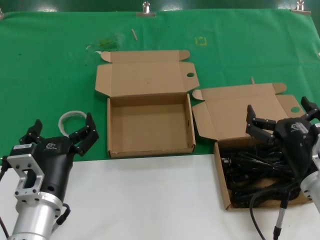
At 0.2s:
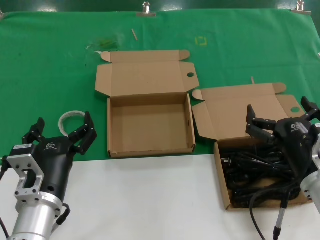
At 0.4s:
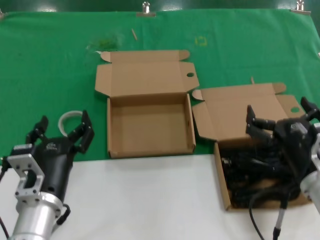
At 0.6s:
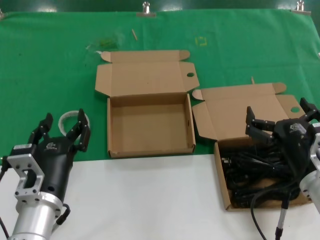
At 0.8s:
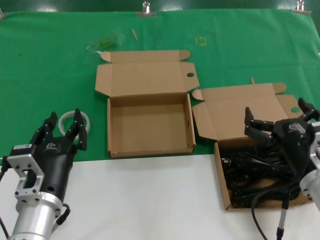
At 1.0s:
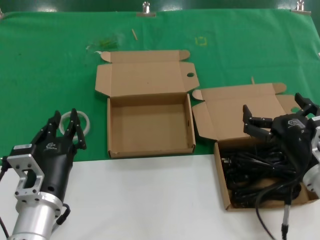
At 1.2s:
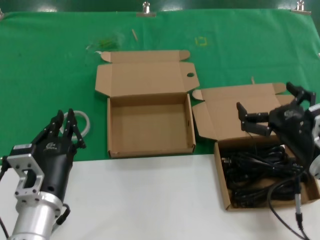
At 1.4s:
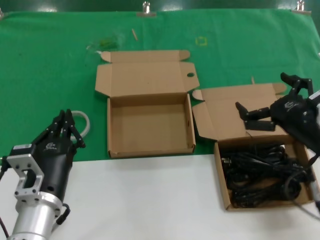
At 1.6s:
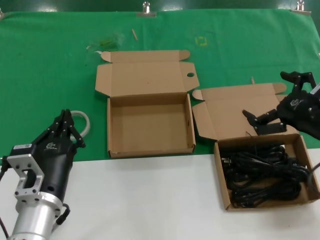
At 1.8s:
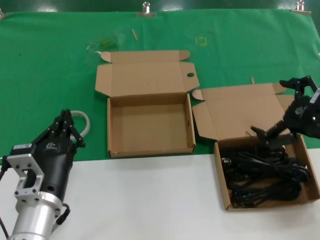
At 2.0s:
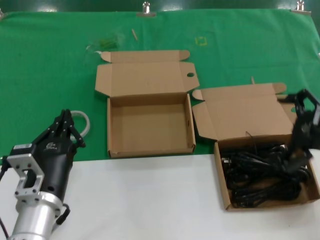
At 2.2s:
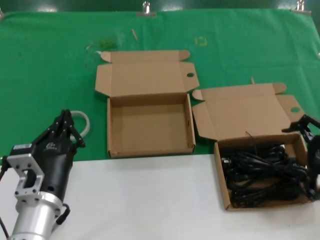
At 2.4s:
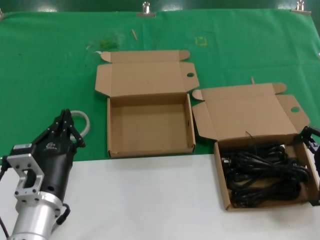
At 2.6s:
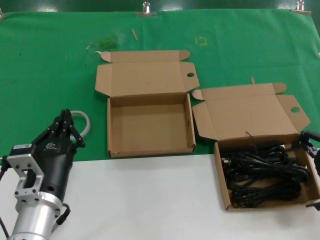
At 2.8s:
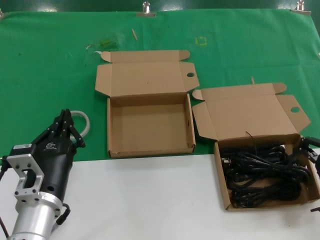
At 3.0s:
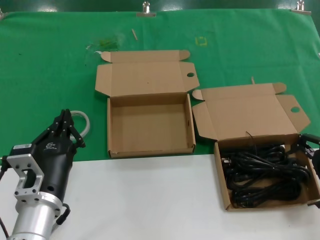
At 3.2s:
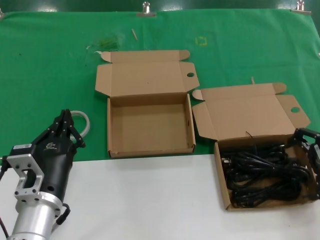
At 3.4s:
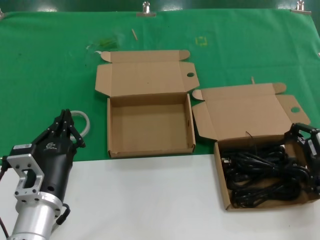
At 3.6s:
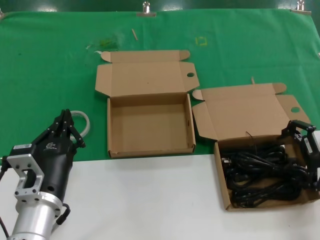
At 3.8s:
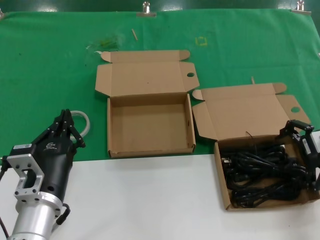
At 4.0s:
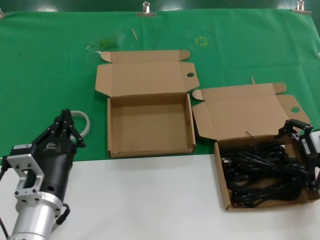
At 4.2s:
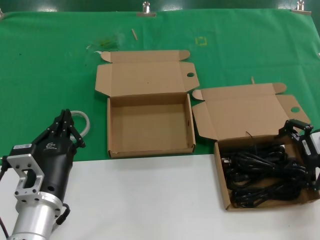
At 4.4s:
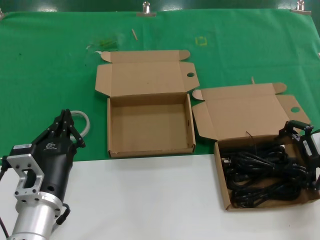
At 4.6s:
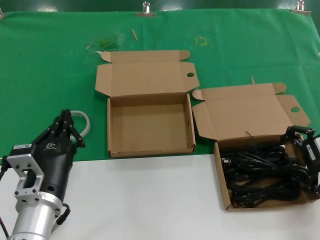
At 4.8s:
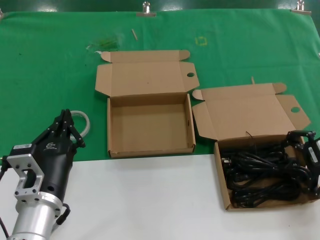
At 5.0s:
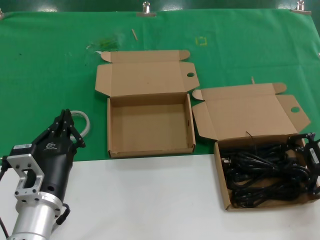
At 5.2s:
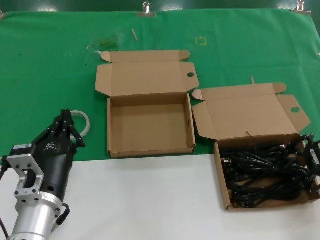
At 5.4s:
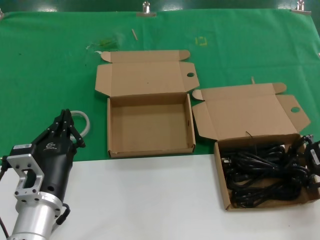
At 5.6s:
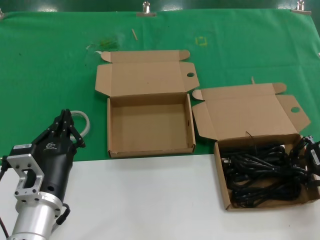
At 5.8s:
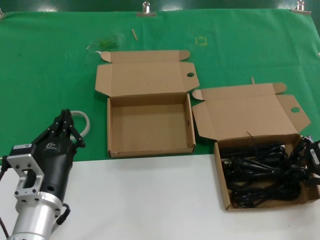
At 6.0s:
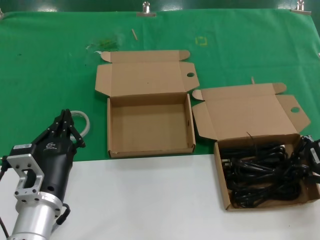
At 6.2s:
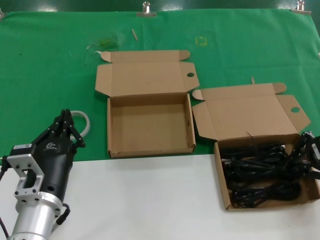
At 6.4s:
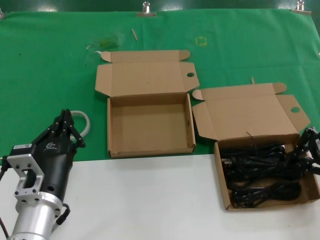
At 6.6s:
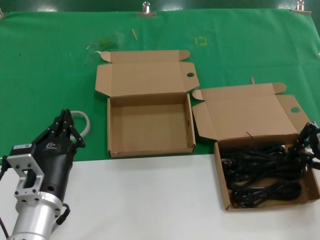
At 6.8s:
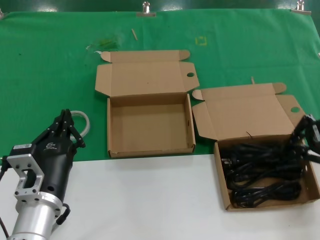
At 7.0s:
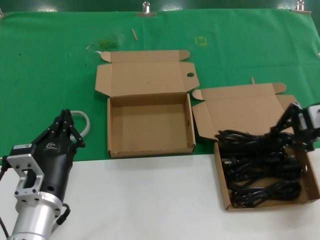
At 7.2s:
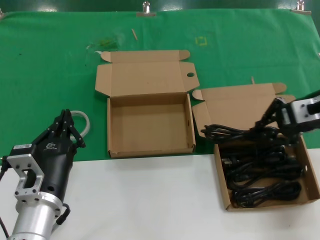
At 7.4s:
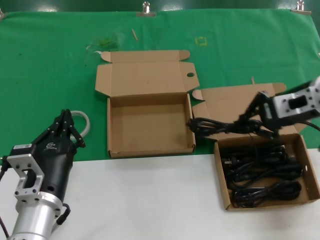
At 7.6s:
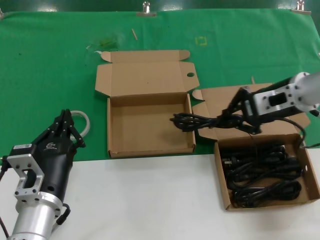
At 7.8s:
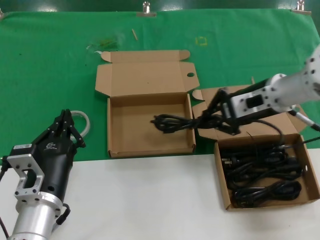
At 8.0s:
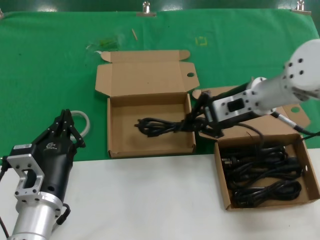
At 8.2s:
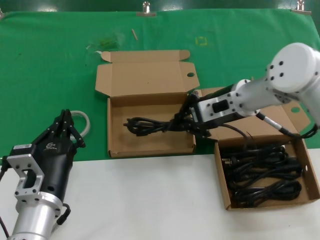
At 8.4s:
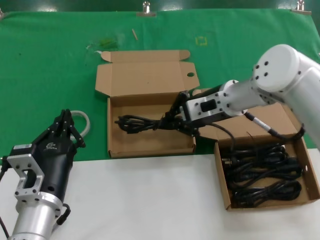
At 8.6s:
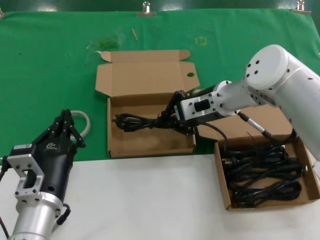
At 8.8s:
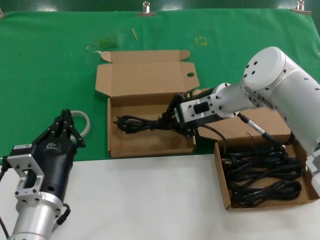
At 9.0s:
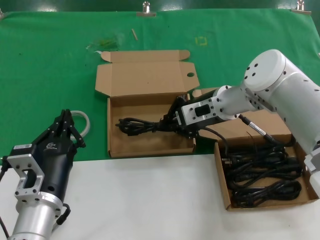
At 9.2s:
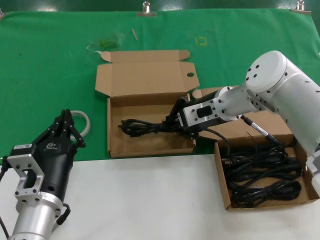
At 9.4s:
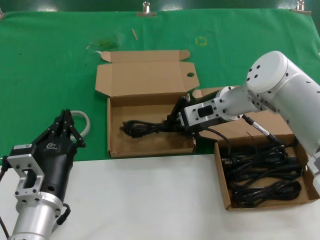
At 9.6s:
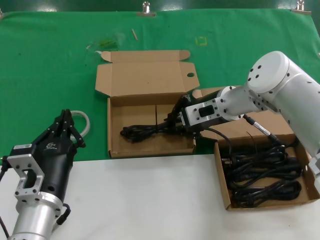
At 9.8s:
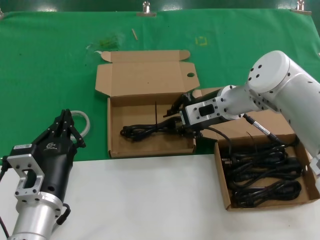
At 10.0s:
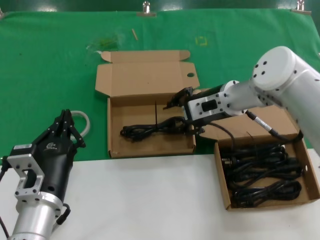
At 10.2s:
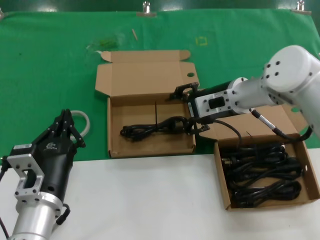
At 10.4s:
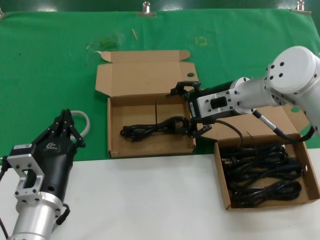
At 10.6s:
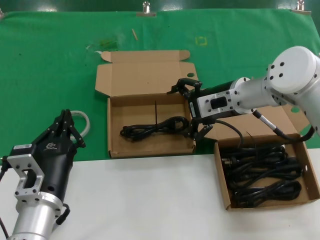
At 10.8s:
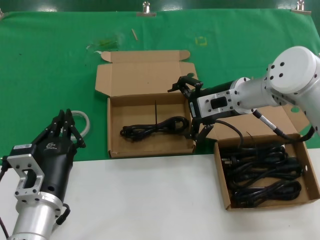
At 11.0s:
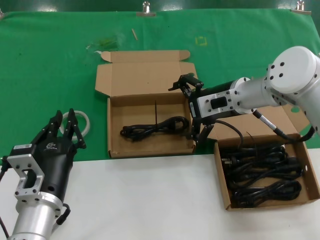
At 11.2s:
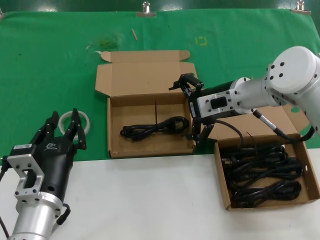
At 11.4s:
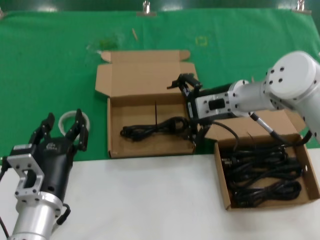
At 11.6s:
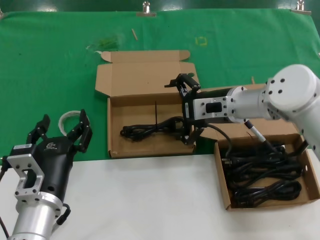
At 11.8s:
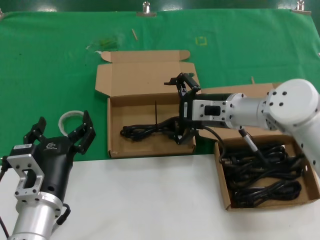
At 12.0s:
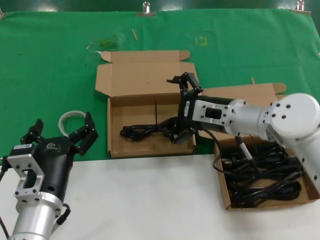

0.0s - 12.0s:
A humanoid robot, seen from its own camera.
Task of the whole recording: take the parts from the box containing them and put them into an empty box.
Step, 0.0s - 6.0s: Grasp the data cable.
Step, 6.2s - 9.6s: Place the data cable in the another box.
0.0s - 1.6s: The right hand travels upward, to the right and forward by about 15 cm.
1.6s - 3.0s: The right hand moves to the right, some 5 cm.
3.0s - 4.4s: The right hand changes place by approximately 5 cm.
4.4s - 6.0s: The hands stay close to where they were, moving slightly.
6.0s - 7.6s: The right hand is displaced to the left and forward by about 10 cm.
7.6s - 9.0s: The right hand heads to the left and downward, covering roughly 15 cm.
9.0s - 10.4s: There are only small adjustments of the hands.
10.4s - 12.0s: The right hand moves downward, roughly 5 cm.

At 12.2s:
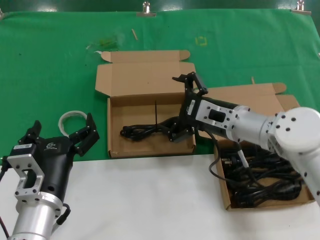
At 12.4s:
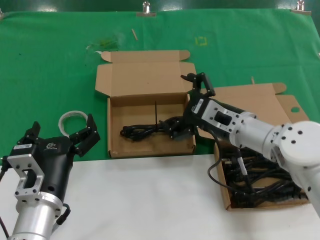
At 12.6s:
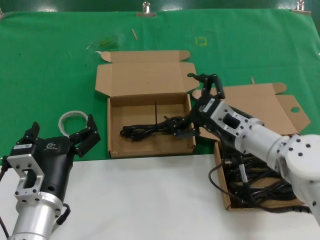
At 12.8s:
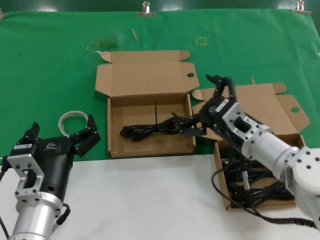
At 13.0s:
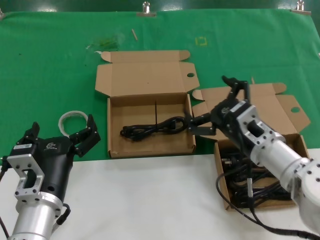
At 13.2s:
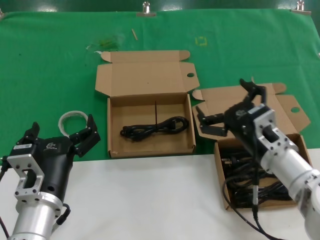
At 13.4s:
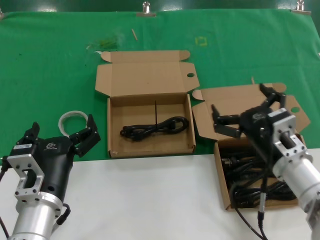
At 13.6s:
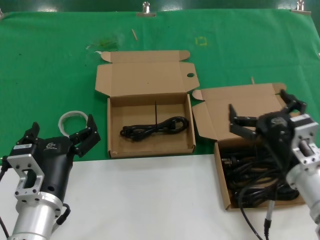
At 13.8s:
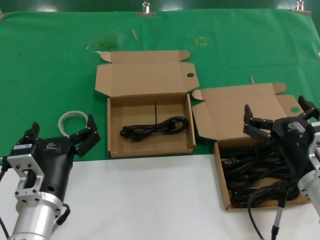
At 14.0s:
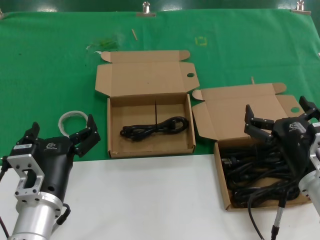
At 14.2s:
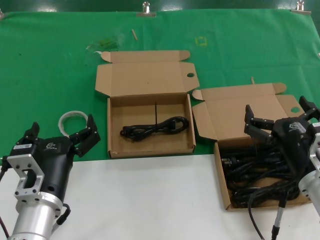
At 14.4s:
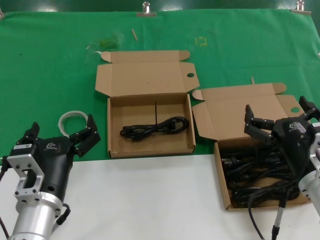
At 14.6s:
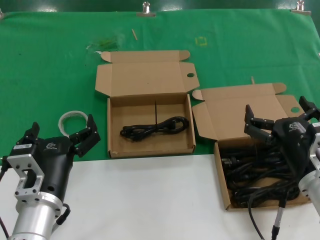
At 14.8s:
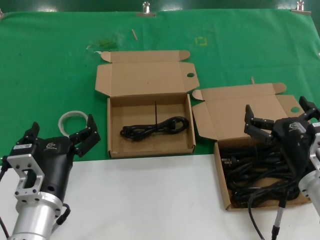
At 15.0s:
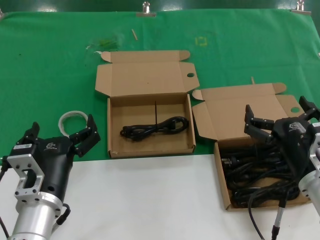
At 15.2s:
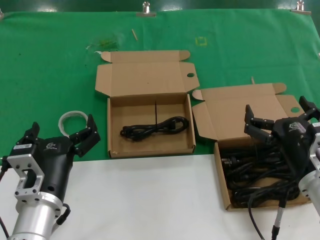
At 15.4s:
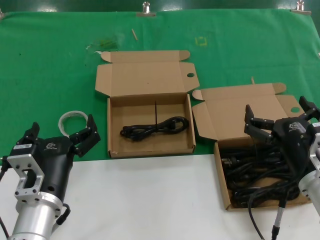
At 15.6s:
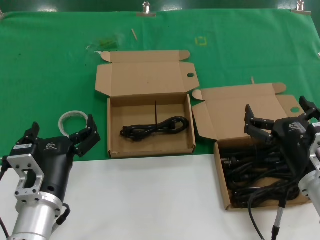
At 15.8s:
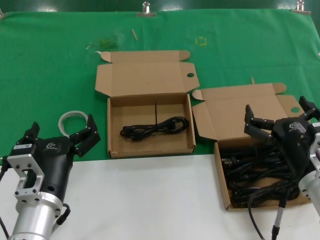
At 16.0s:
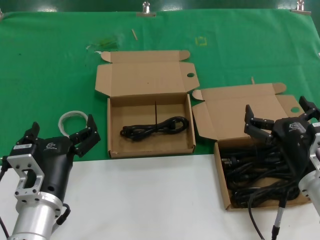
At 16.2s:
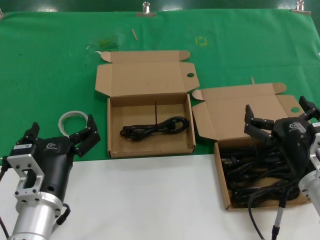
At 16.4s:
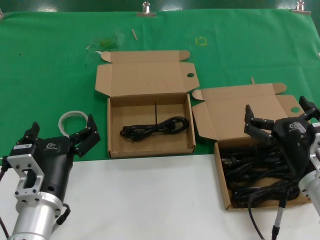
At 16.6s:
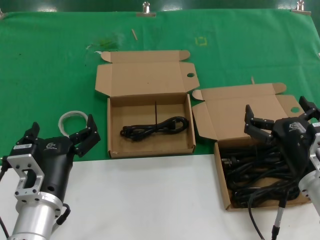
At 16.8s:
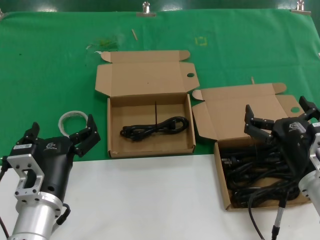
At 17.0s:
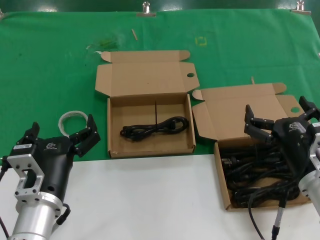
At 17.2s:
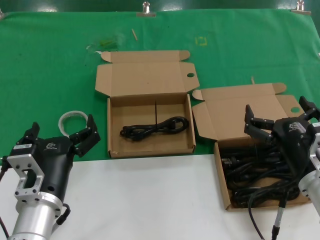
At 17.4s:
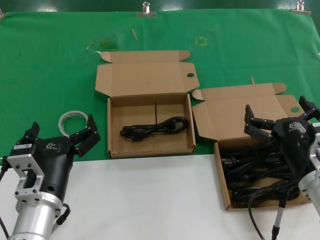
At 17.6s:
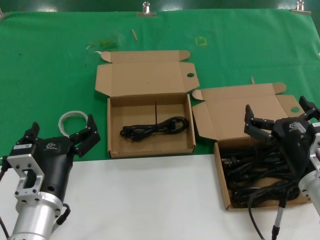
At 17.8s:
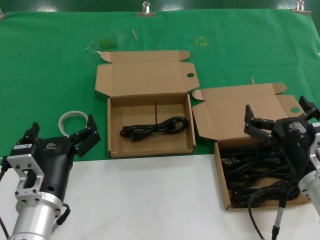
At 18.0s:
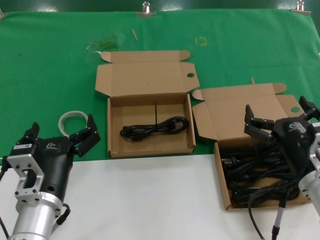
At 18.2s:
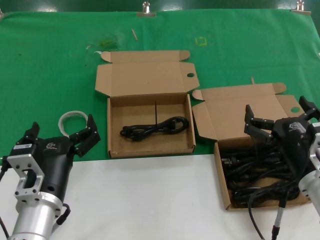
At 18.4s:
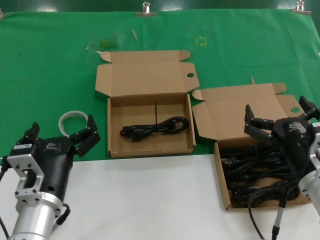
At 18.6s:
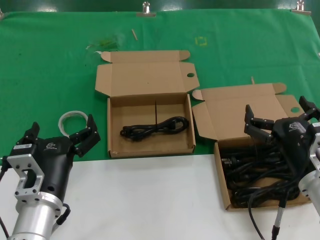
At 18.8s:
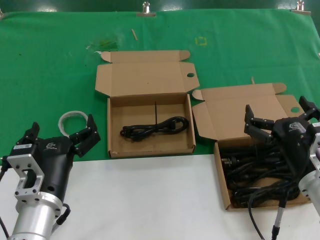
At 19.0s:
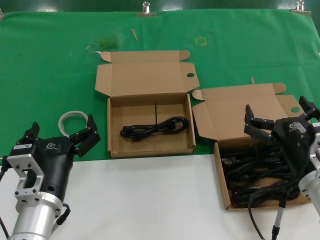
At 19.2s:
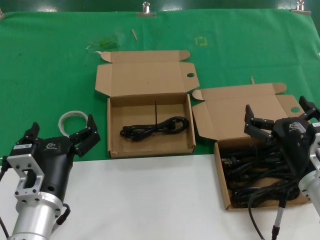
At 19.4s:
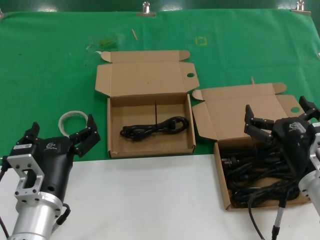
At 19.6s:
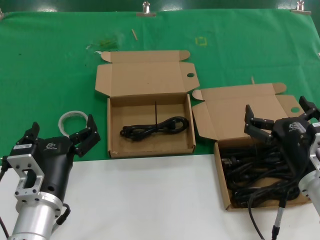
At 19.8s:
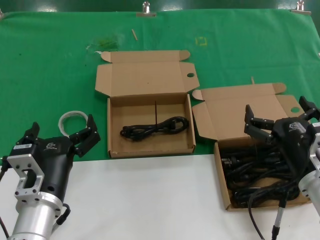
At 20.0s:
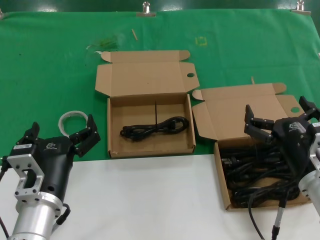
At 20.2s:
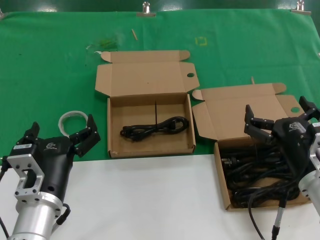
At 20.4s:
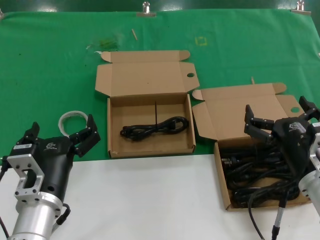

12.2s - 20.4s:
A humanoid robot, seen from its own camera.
Task of the whole recording: take the parts from the box containing them and put them into an empty box.
12.2s - 13.8s: The right hand heads backward and to the right, covering approximately 15 cm.
13.8s - 20.4s: The two hands keep their place.

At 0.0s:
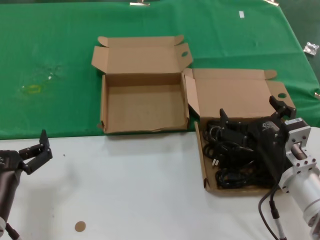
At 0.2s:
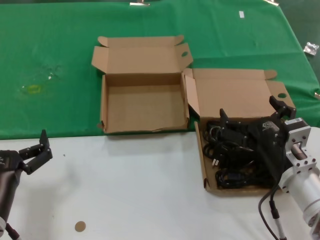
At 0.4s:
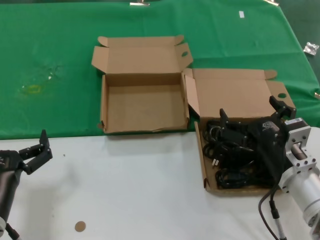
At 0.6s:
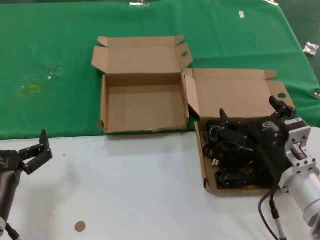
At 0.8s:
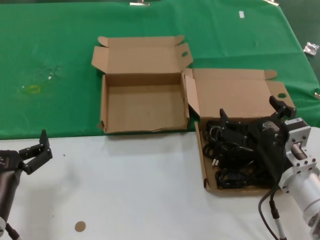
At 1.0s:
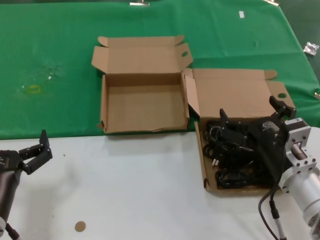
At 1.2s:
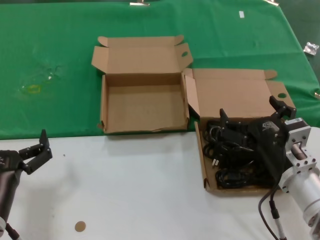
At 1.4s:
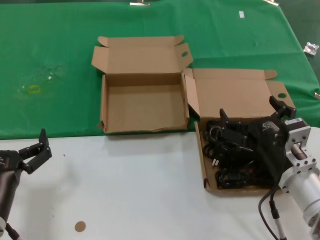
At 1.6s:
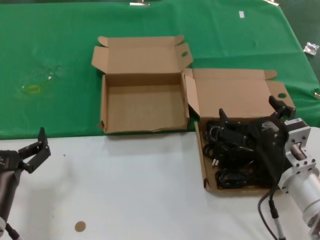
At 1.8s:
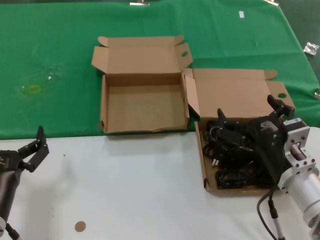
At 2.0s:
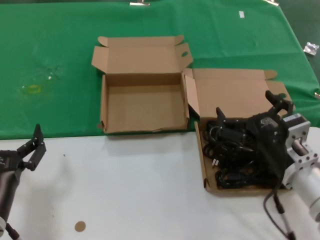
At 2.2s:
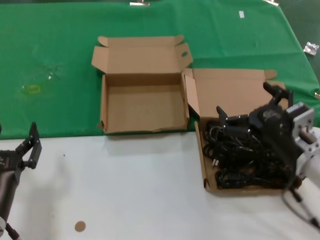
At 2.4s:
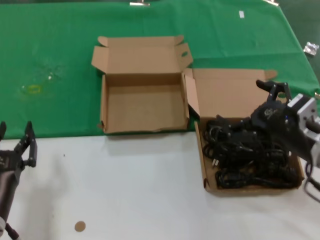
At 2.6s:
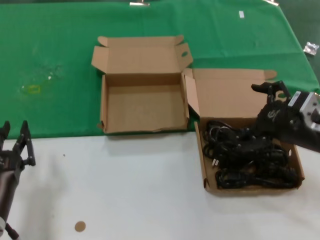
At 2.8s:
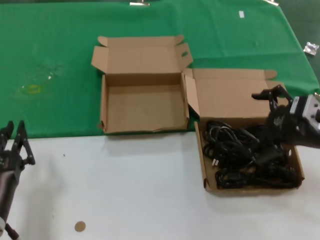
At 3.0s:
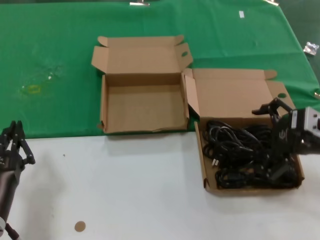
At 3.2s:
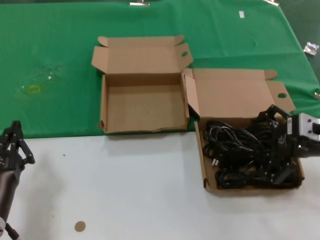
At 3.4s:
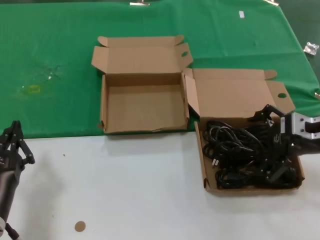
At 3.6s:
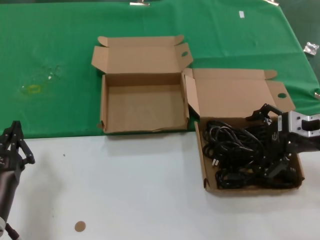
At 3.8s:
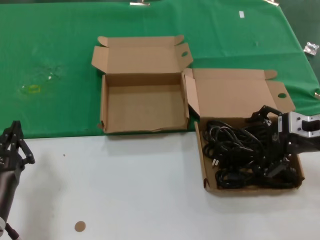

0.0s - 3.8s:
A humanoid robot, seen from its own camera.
Task of the whole recording: take the parts from the box containing them and put them into an empty box.
0.0s - 1.2s: Neither hand changes place.
1.2s - 2.6s: The right hand is displaced upward and to the right by approximately 15 cm.
2.6s - 3.8s: The right hand is displaced forward by roughly 5 cm.
